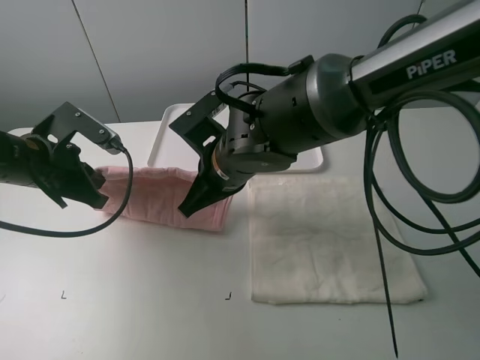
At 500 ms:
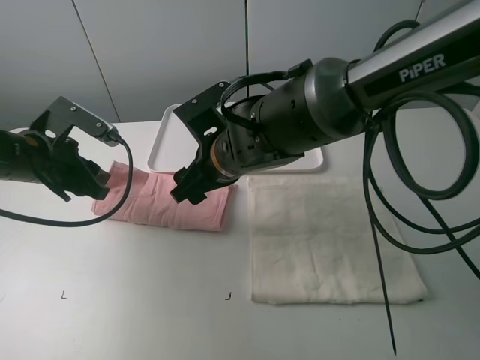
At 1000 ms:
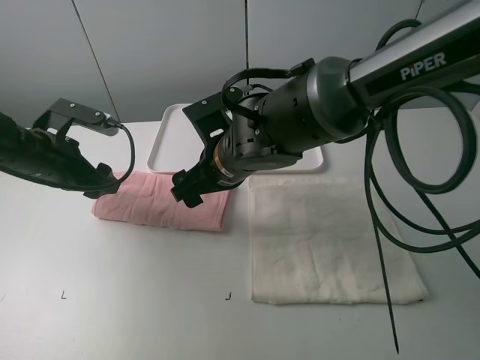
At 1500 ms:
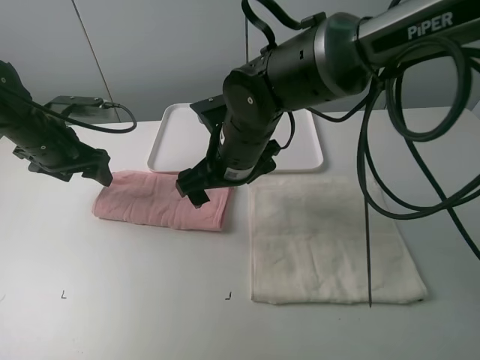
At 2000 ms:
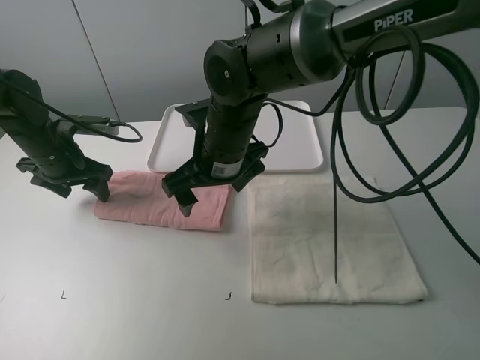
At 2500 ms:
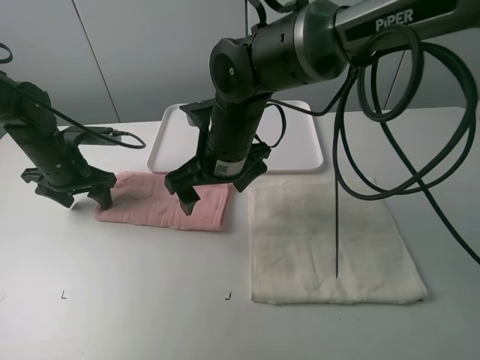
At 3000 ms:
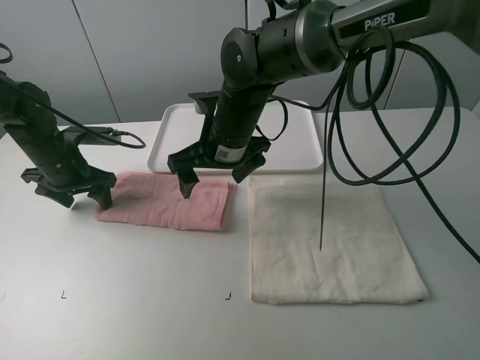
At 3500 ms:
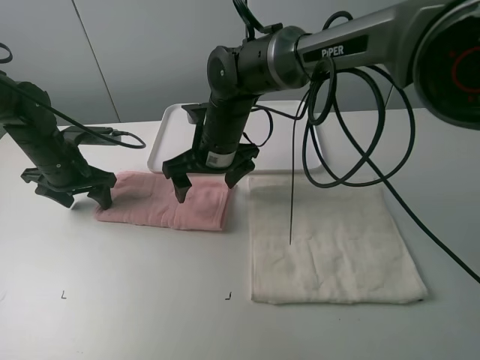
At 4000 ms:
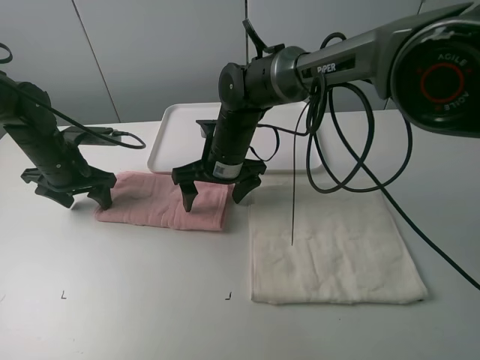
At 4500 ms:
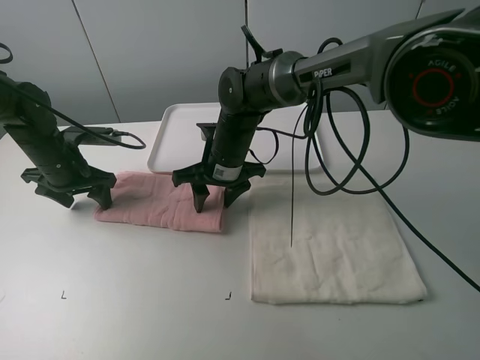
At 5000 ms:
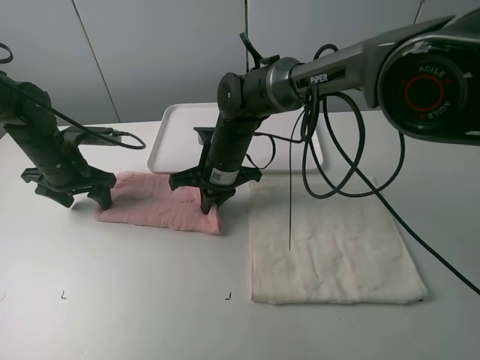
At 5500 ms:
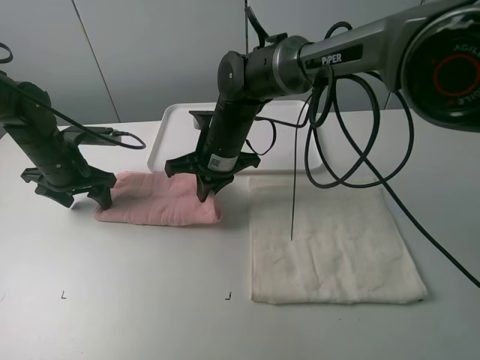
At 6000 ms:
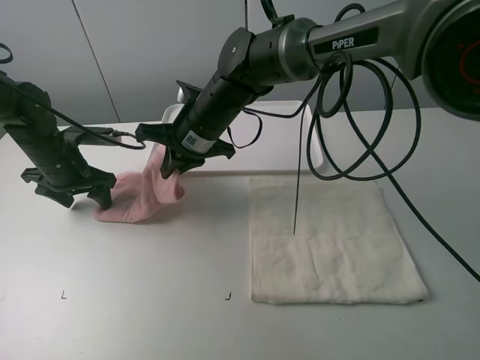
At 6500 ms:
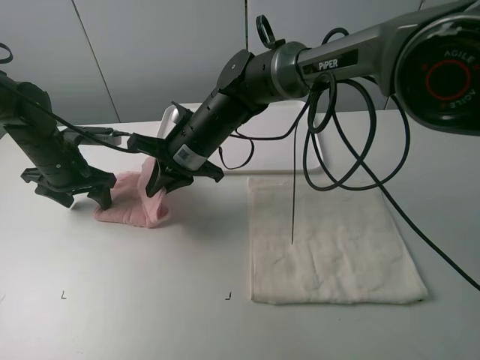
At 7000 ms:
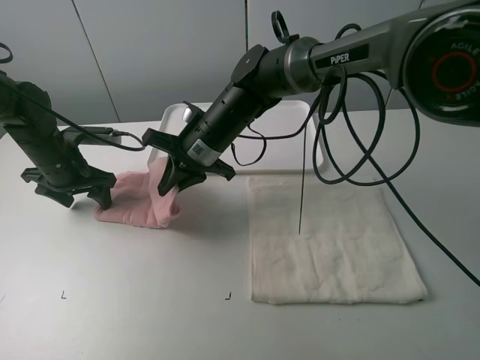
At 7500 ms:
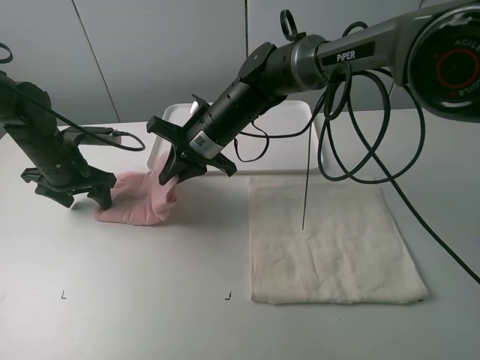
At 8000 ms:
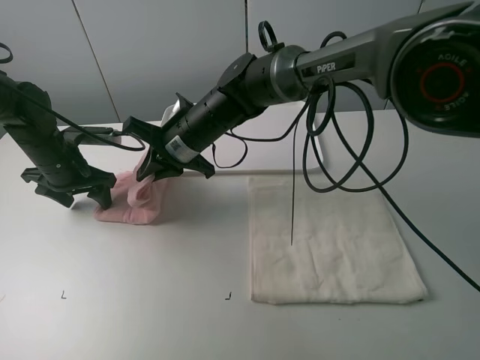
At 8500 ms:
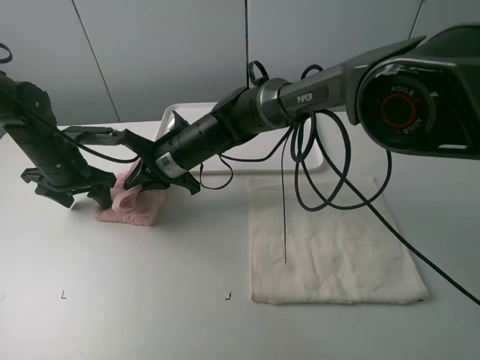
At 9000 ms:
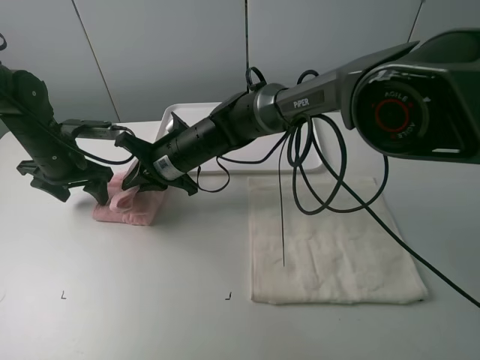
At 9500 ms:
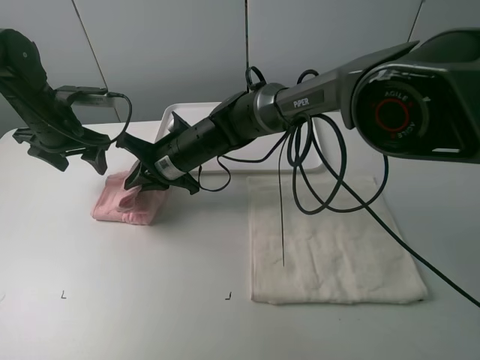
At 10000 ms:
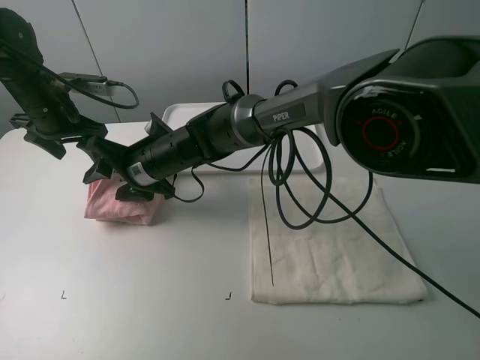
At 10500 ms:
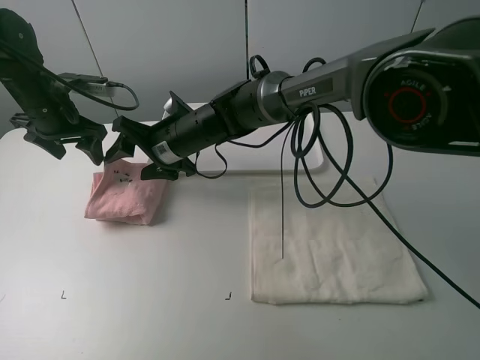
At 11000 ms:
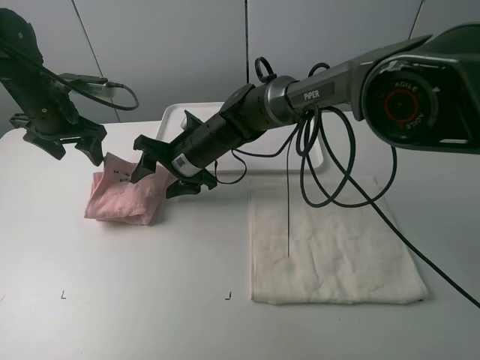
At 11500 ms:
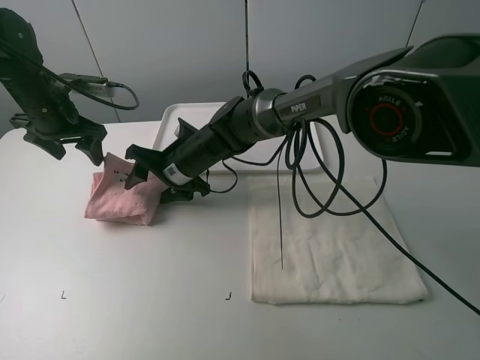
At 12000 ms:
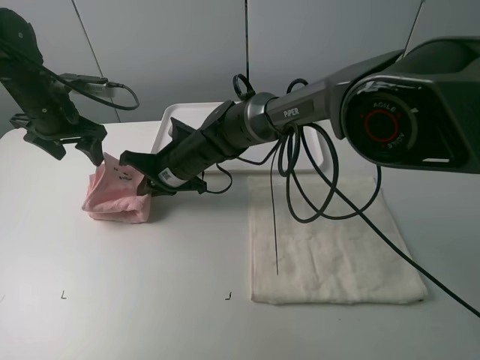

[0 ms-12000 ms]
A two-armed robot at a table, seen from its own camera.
Task of the whole recording: fold one of the towels by two grippers and place it on the tray,then fold another towel by two grippers and place it on the folded towel.
Step, 1000 ms to 2000 ms: Press the pink towel with the left gripper.
Step, 2500 ms to 4500 ms: Grasp the pink towel with the right gripper.
Step, 5000 ms to 10000 ms: Fold the pink towel from right to left with right gripper.
Step, 10500 ms to 11500 ms: Grasp the pink towel with the right gripper.
0 ms to 2000 ms: The left gripper shifts roughly 10 cm forward, and opens up; the right gripper opens its fingers.
2000 ms to 4000 ms: The right gripper travels forward and downward by about 10 cm.
4000 ms to 6000 ms: The right gripper heads upward, covering roughly 5 cm, and closes up.
6000 ms to 8000 ms: The grippers move only a little.
8000 ms to 10000 ms: The left gripper is displaced upward by about 10 cm. The right gripper shifts approximately 5 cm to the left, and opens.
10000 ms to 12000 ms: The right gripper closes up.

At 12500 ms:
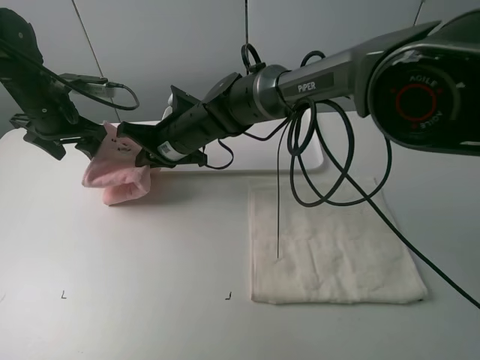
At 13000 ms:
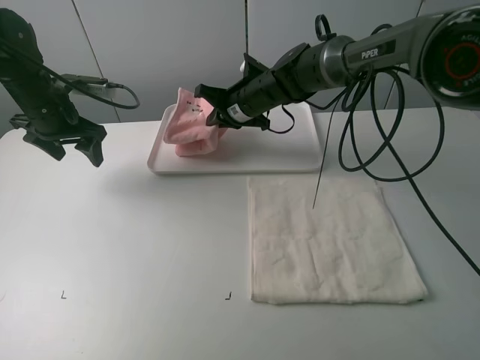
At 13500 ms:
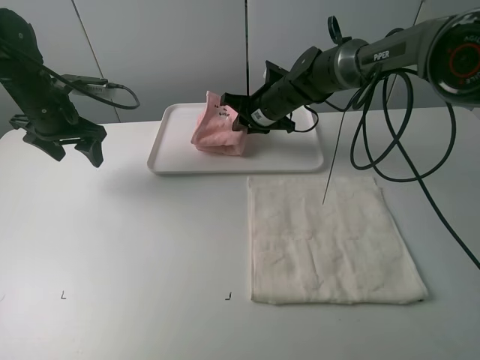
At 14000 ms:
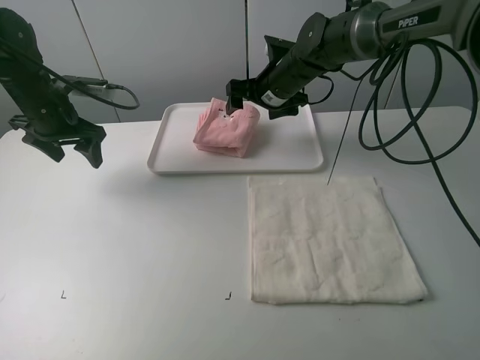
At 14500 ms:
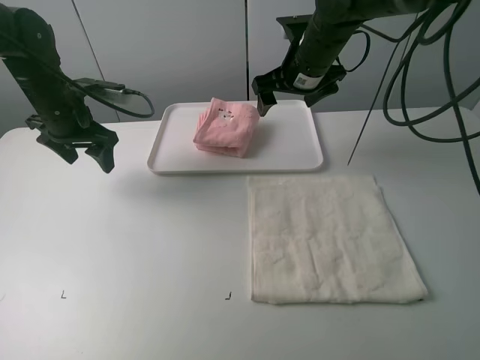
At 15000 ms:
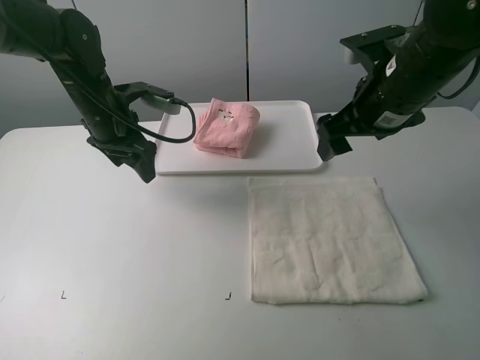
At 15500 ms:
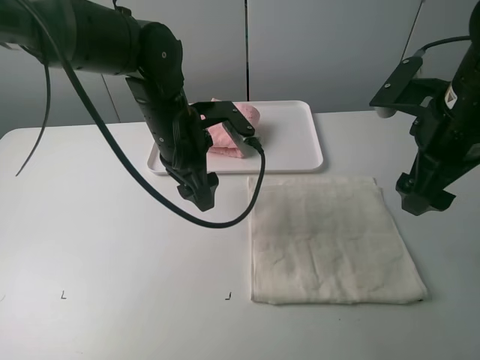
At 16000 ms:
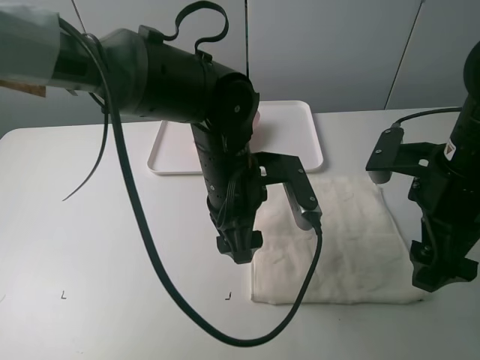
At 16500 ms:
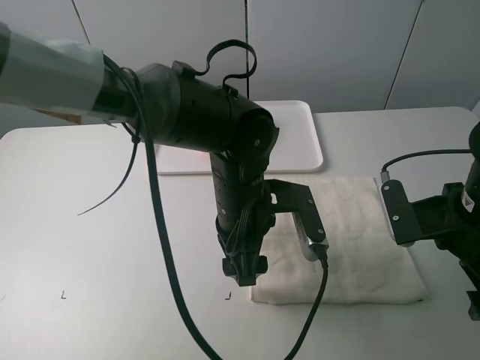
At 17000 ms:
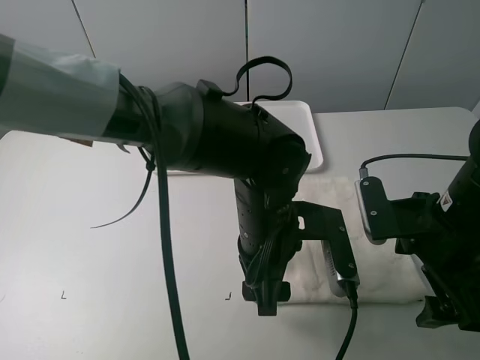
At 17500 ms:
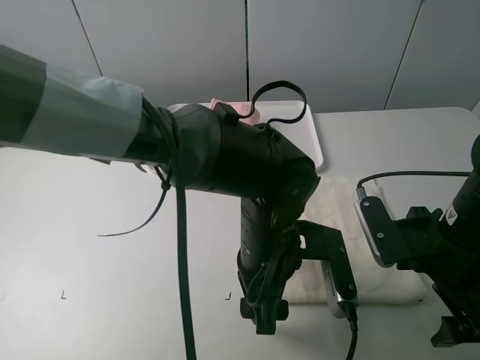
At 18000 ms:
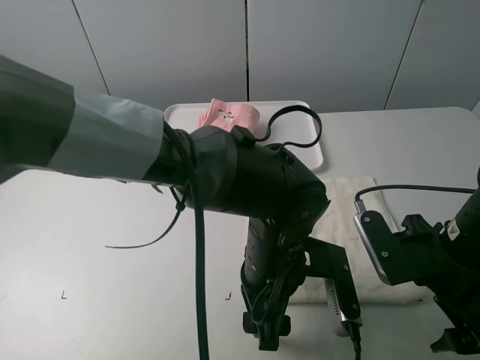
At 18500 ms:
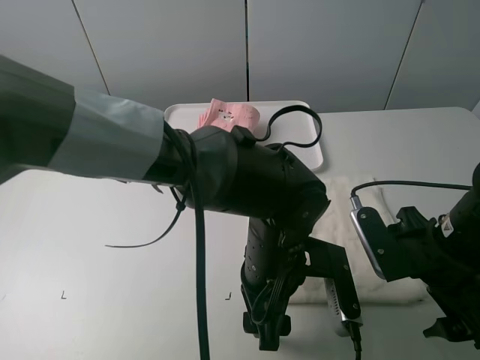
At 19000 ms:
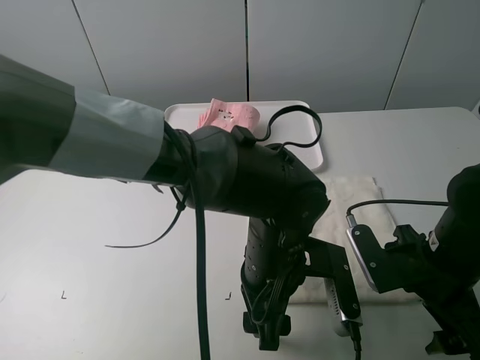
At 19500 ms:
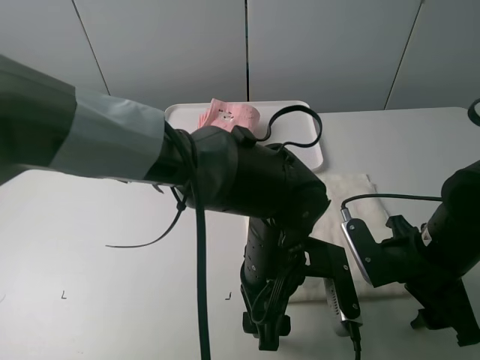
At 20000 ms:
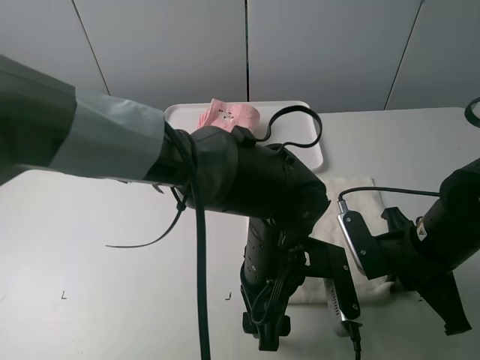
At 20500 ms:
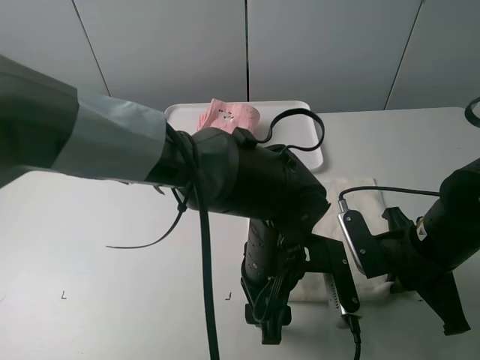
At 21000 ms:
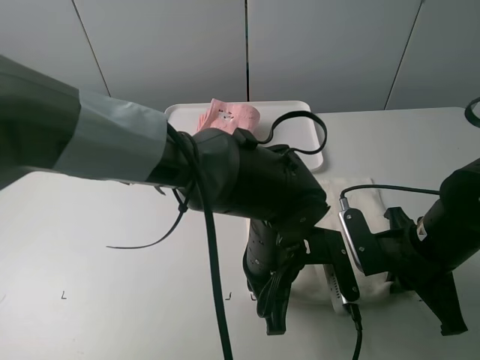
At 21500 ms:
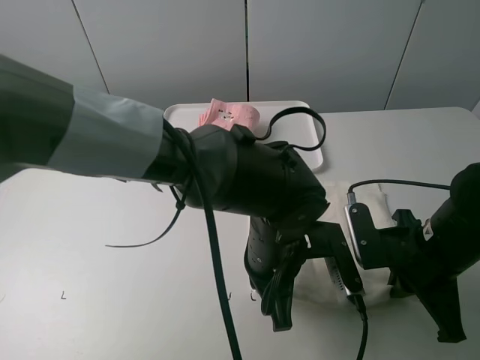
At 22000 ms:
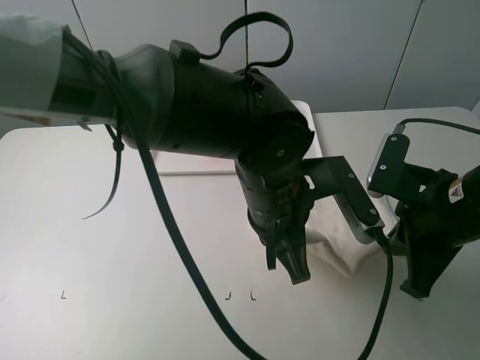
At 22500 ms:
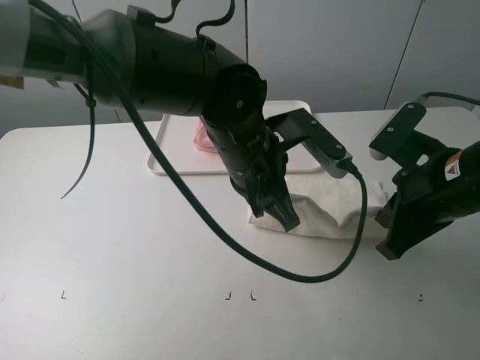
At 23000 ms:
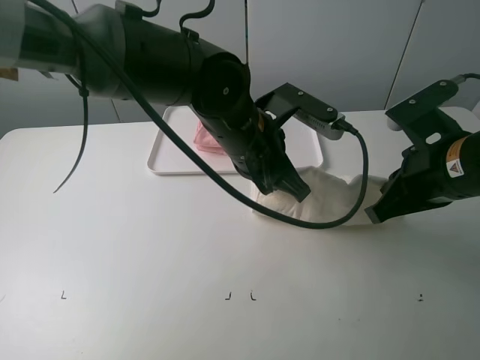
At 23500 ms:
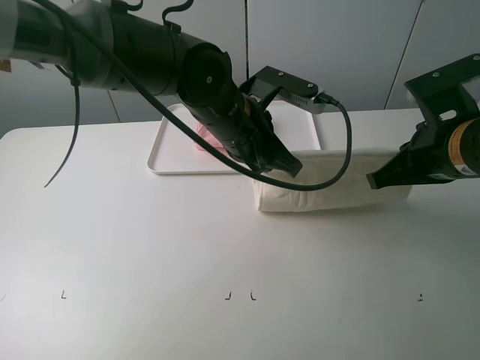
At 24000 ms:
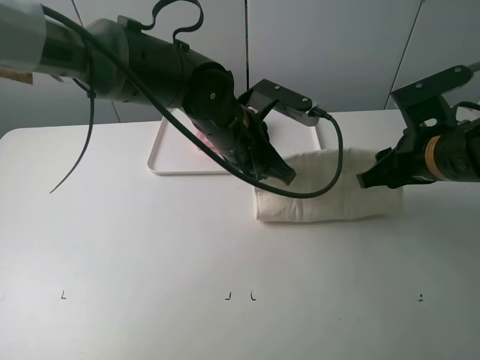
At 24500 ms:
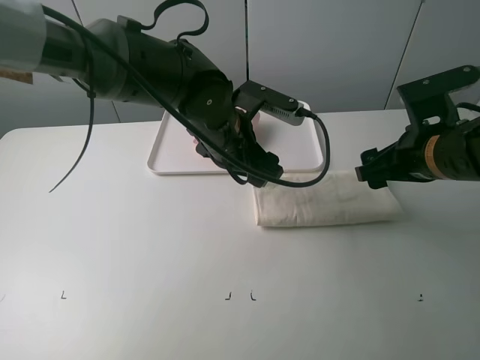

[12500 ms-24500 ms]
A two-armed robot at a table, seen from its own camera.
Task of the whole recording: fold one of the towels by two grippers and place it on the tray,then fold another towel by two grippers and place it on the folded towel.
Step, 12500 ms to 13500 ms: Move the pink towel to the plate with the right gripper.
Step, 14000 ms to 21000 ms: Grasp the white towel with the left gripper.
Step, 21500 ms to 24000 ms: Fold the white towel upwards with the left gripper.
12500 ms to 14500 ms: The right gripper travels to the right and upward by some 20 cm, and opens its fingers.
14500 ms to 16500 ms: The left gripper is displaced to the right and backward by about 30 cm; the right gripper shifts some 25 cm backward and to the right.
16500 ms to 18500 ms: The left gripper heads backward, covering about 5 cm.
18500 ms to 20500 ms: The right gripper closes its fingers.
20500 ms to 22500 ms: The left gripper is displaced upward and forward by some 10 cm, and closes. Meanwhile the right gripper is displaced upward by about 10 cm.
22500 ms to 24500 ms: Both grippers travel together forward, approximately 5 cm. The right gripper opens, while the left gripper opens.

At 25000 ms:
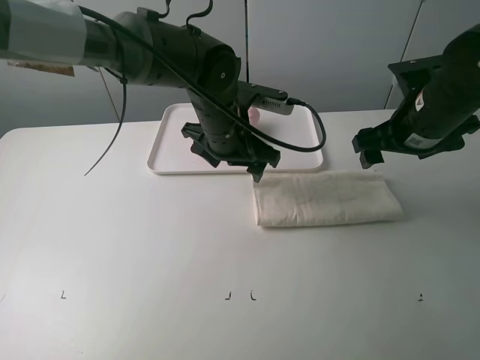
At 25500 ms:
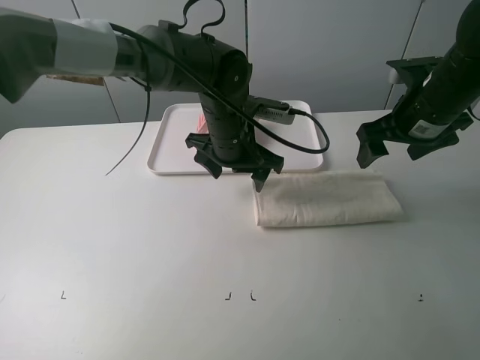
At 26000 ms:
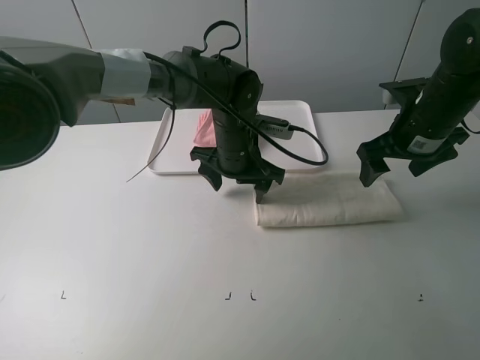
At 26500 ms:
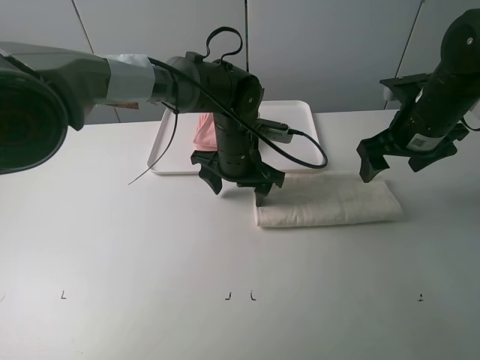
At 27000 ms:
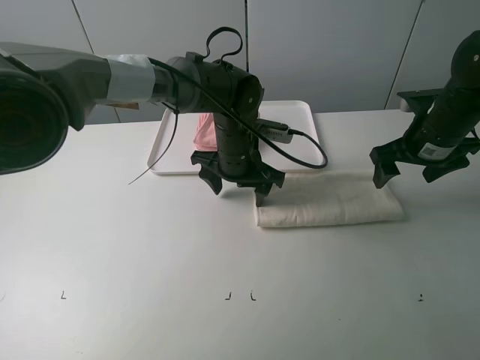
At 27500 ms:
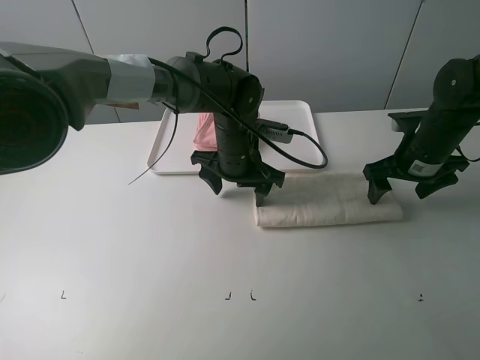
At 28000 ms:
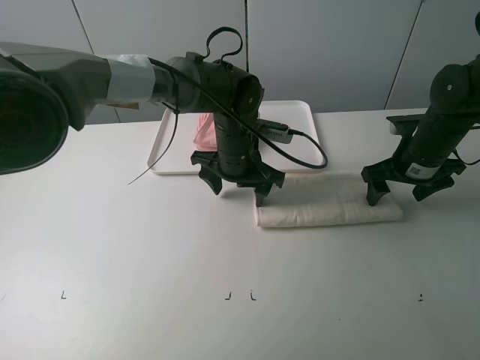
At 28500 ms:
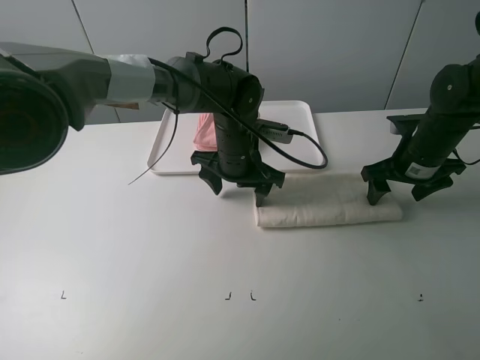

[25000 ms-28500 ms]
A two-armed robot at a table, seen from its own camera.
Task of the whole recording: fold one of the towels by two grippers and place it on the tray,then fold another towel by two grippers and place it on the folded towel.
Step, 25000 ms to 26000 ms: Press the white towel with the left gripper.
25000 ms to 27000 ms: The left gripper travels downward by roughly 5 cm; the right gripper moves some 5 cm.
27000 ms to 28500 ms: The grippers move only a little.
